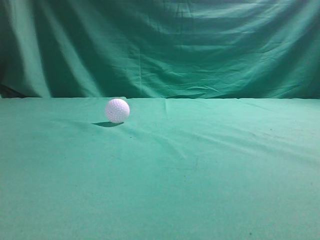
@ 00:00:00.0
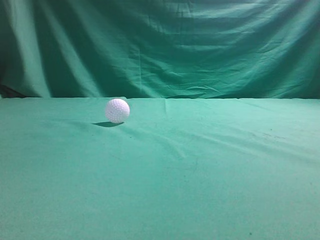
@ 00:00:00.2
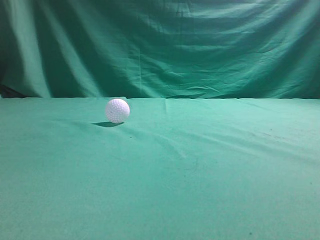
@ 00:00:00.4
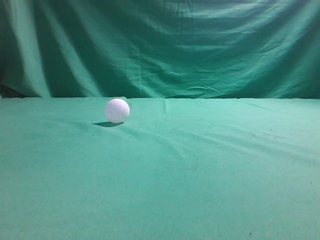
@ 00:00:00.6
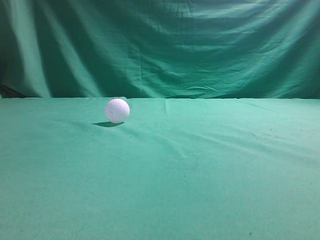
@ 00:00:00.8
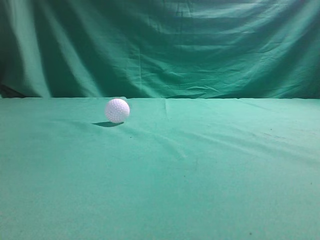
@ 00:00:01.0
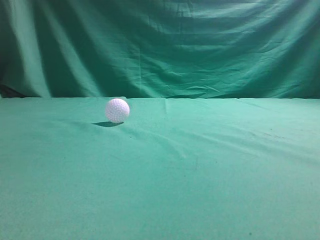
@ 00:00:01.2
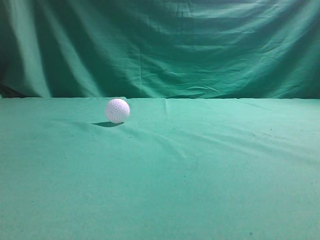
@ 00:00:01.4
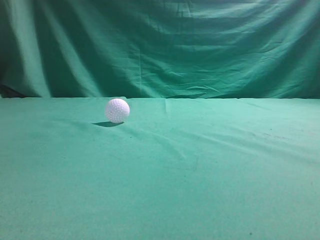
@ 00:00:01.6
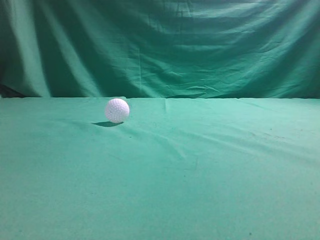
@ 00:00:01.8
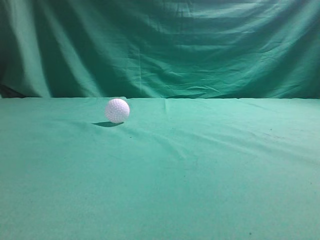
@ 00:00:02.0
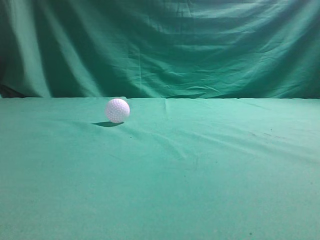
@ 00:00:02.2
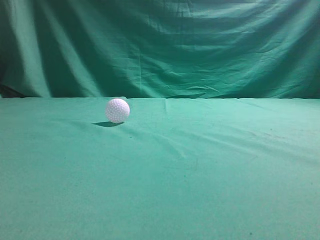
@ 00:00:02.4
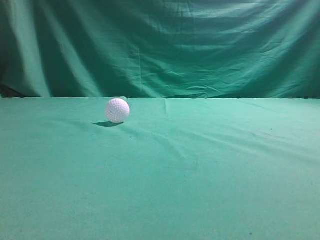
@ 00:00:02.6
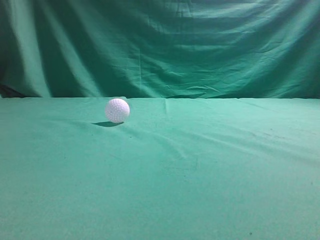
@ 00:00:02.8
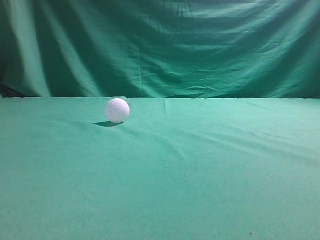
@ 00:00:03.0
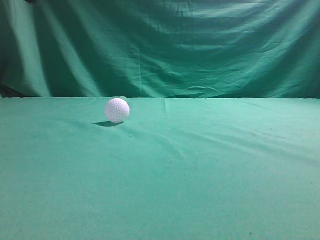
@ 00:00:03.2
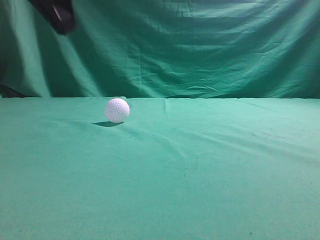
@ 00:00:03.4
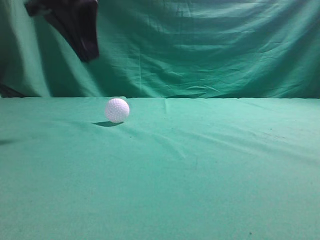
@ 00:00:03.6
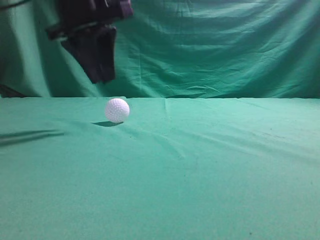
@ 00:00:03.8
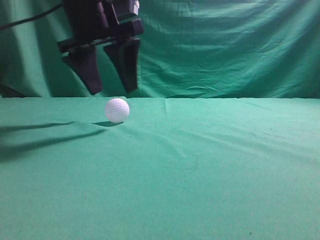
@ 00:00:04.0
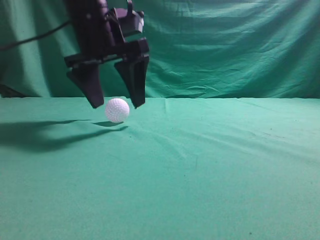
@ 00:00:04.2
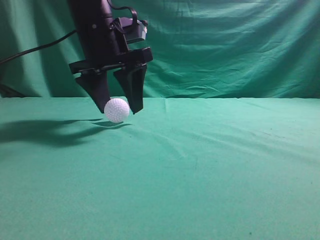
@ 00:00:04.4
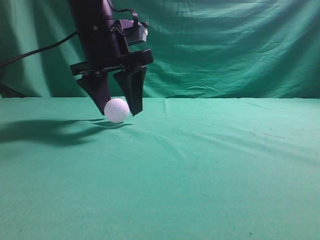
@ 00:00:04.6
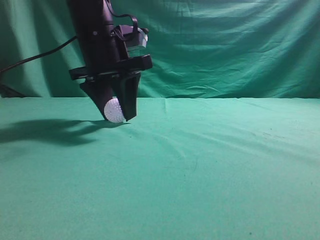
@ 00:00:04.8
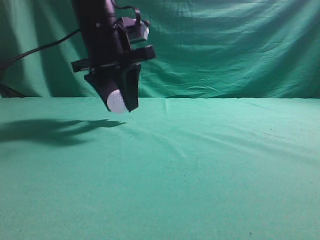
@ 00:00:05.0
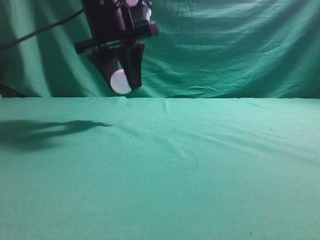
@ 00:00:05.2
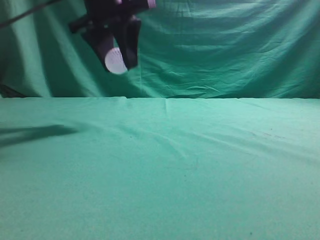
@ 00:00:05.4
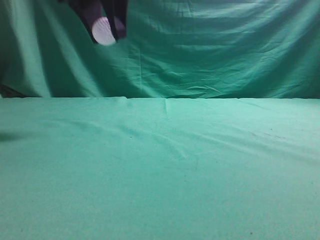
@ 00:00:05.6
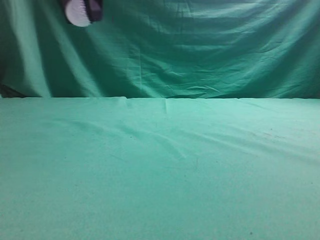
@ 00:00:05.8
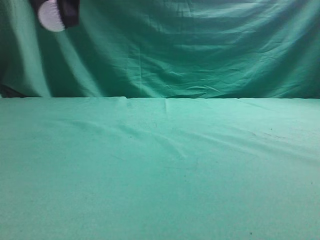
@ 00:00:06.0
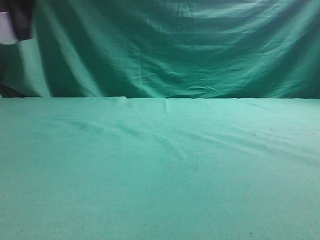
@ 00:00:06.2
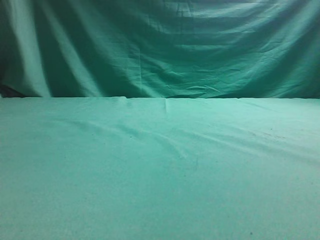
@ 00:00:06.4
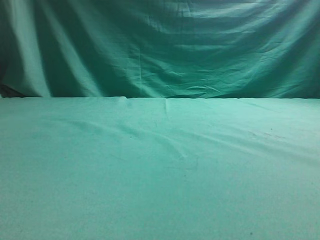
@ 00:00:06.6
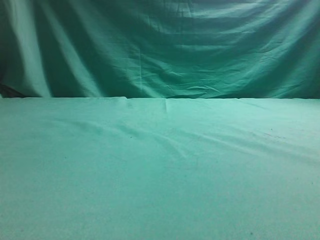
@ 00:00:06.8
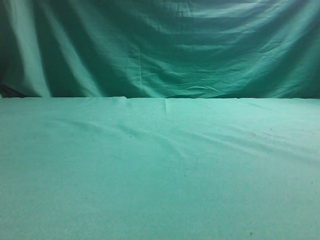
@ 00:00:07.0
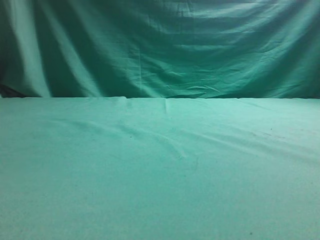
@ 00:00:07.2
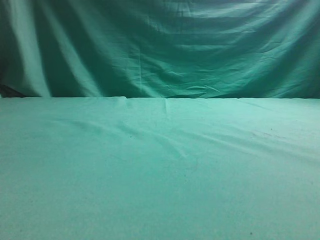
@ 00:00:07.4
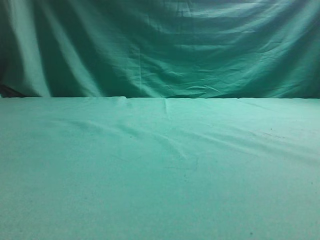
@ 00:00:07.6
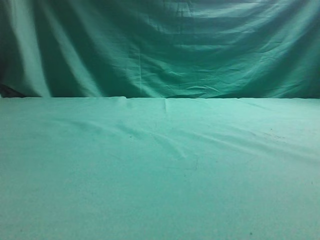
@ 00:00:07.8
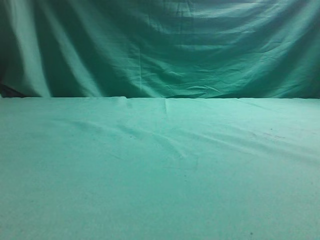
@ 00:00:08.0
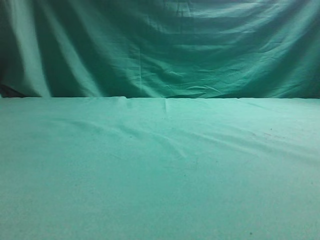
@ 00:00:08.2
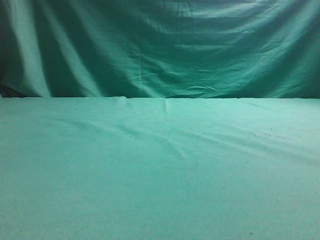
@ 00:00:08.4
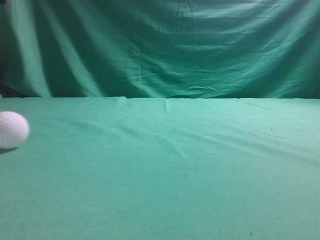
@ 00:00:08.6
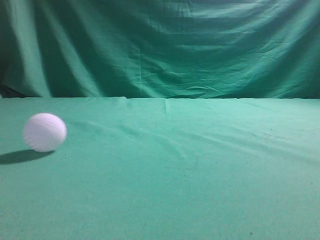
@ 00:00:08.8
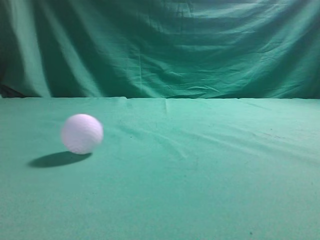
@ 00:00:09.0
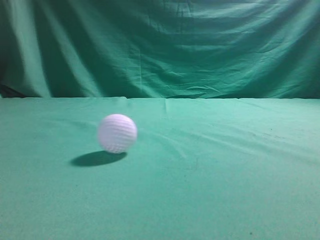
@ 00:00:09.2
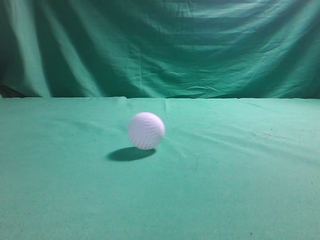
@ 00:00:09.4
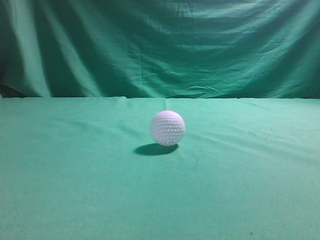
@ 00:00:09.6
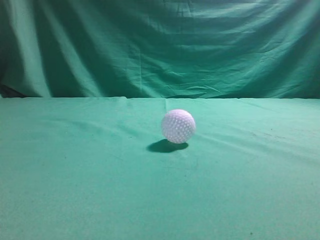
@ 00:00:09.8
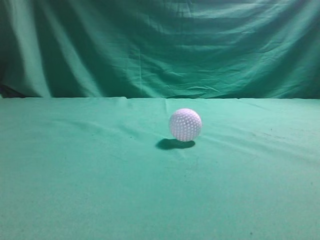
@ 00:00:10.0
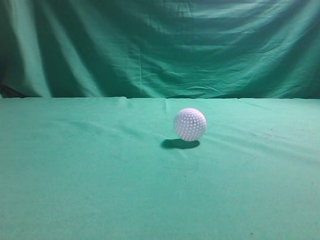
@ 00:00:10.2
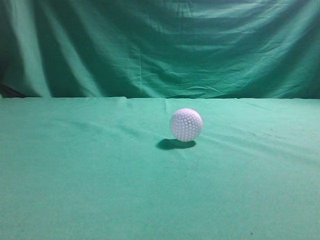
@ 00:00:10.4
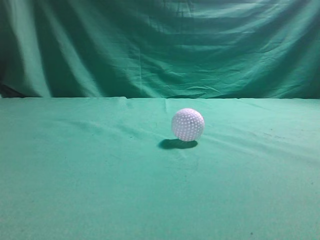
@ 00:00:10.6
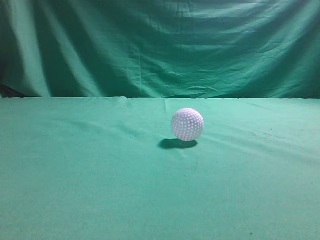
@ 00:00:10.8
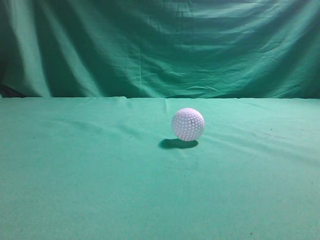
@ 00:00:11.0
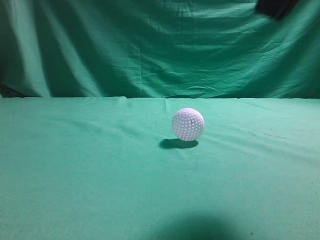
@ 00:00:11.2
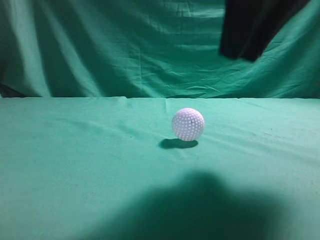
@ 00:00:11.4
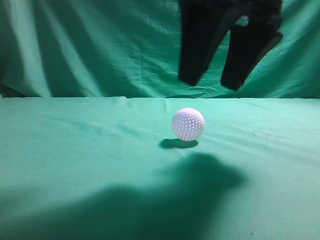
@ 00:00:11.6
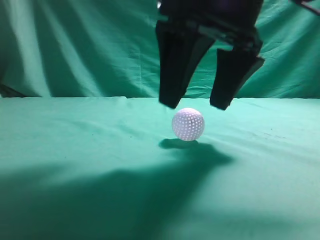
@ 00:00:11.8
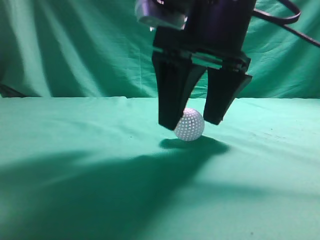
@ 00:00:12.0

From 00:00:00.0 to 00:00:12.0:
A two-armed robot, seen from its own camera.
Task of the whole recording: pick up the ball and place it on the plate, then pick up the ball from the plate and put it in the center of the table.
Step, from 00:00:00.0 to 00:00:05.2: Grab the spherical object with your left arm.
Step, from 00:00:05.6 to 00:00:08.0: Place the sphere on the white object.
From 00:00:03.0 to 00:00:04.4: The left gripper heads forward, to the right and downward, covering about 30 cm, and opens.
From 00:00:04.4 to 00:00:06.0: The left gripper travels upward and backward by about 15 cm, and closes its fingers.
From 00:00:06.0 to 00:00:07.6: The left gripper is displaced to the left and downward by roughly 25 cm.
From 00:00:07.6 to 00:00:09.0: The left gripper goes some 25 cm upward and to the right, and closes its fingers.
From 00:00:09.0 to 00:00:10.4: The right gripper travels upward by some 10 cm. The left gripper shifts approximately 20 cm backward and downward.
From 00:00:10.4 to 00:00:12.0: The right gripper moves to the left, forward and downward, roughly 30 cm, and opens.

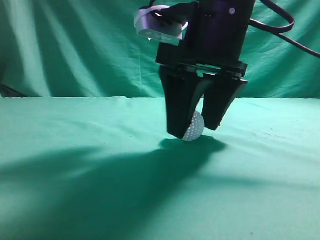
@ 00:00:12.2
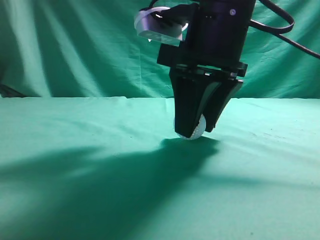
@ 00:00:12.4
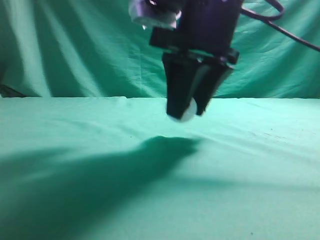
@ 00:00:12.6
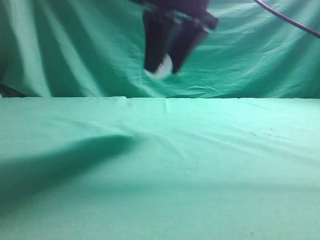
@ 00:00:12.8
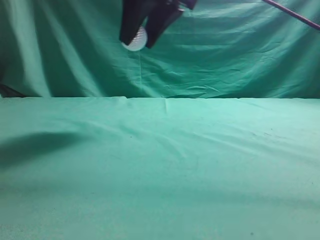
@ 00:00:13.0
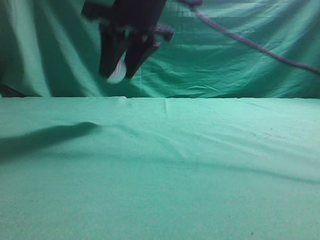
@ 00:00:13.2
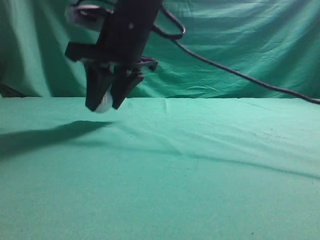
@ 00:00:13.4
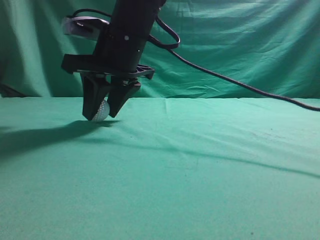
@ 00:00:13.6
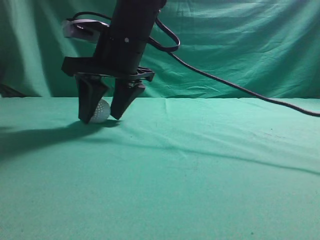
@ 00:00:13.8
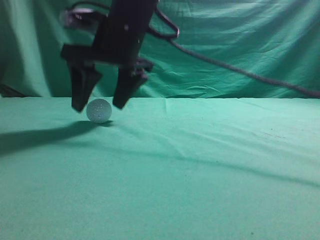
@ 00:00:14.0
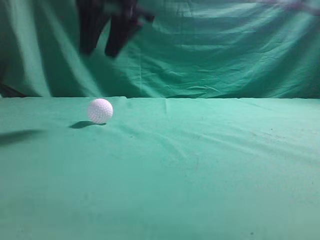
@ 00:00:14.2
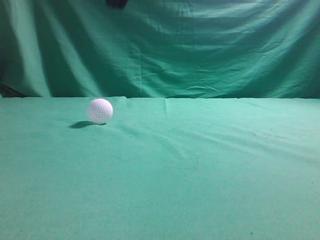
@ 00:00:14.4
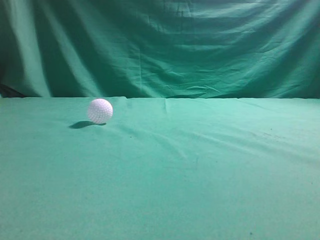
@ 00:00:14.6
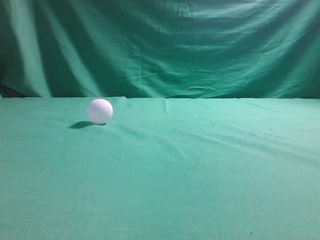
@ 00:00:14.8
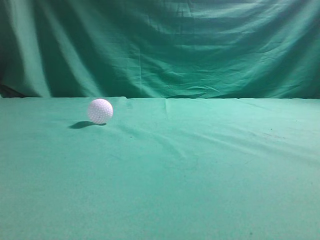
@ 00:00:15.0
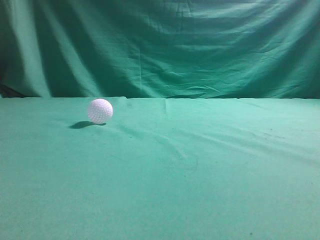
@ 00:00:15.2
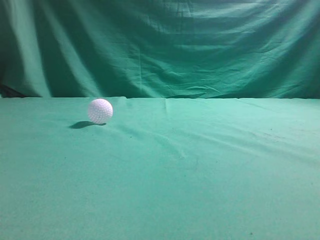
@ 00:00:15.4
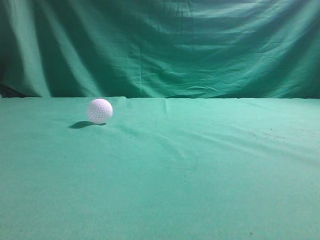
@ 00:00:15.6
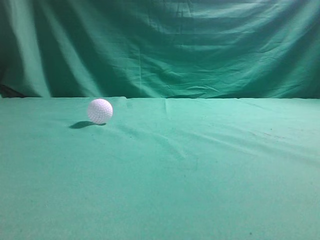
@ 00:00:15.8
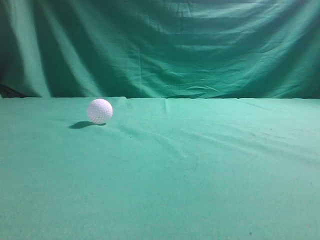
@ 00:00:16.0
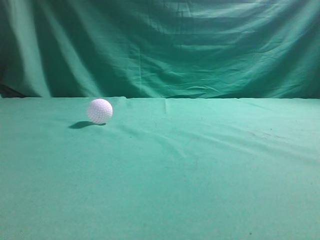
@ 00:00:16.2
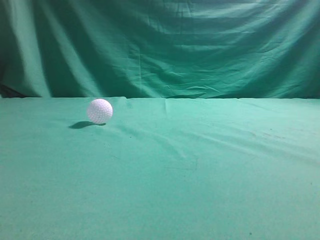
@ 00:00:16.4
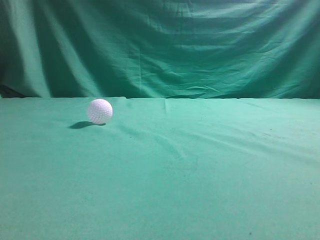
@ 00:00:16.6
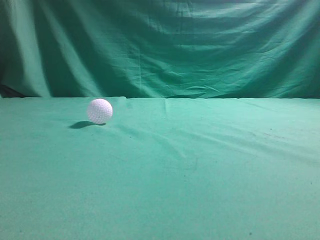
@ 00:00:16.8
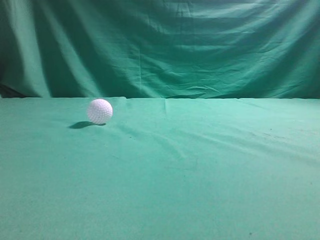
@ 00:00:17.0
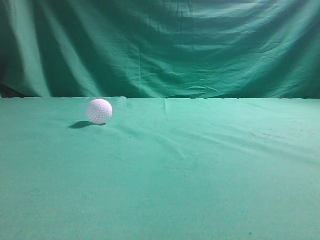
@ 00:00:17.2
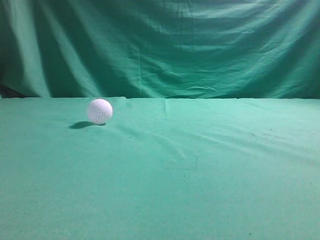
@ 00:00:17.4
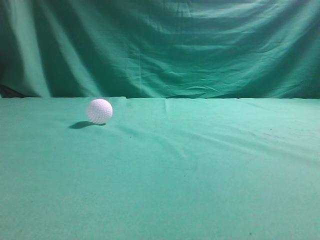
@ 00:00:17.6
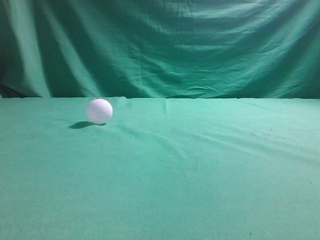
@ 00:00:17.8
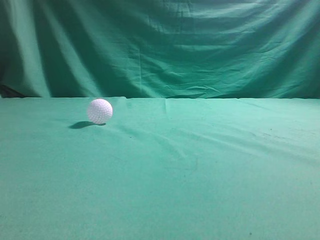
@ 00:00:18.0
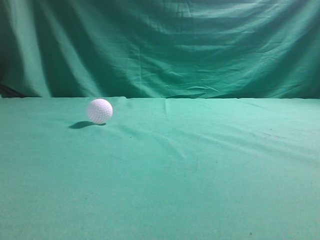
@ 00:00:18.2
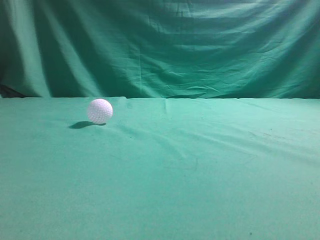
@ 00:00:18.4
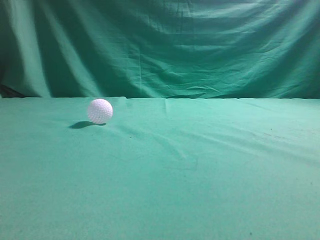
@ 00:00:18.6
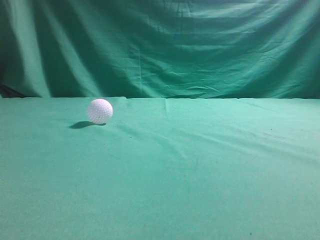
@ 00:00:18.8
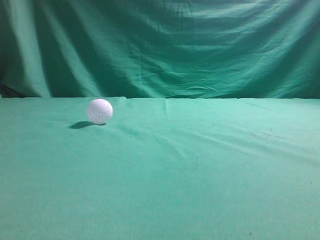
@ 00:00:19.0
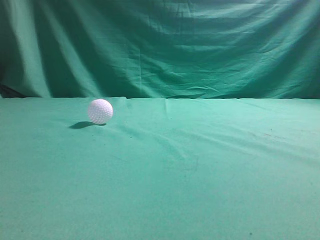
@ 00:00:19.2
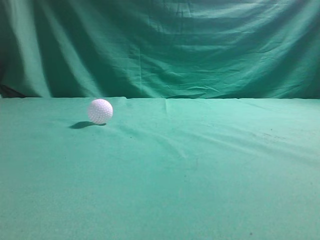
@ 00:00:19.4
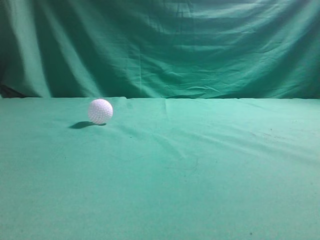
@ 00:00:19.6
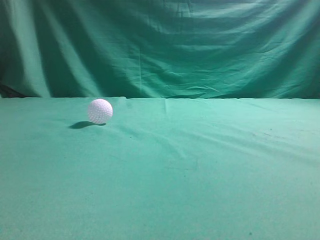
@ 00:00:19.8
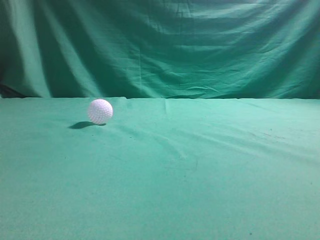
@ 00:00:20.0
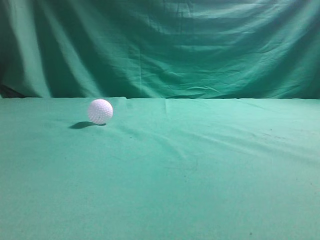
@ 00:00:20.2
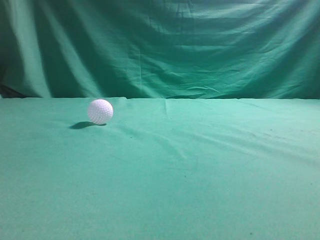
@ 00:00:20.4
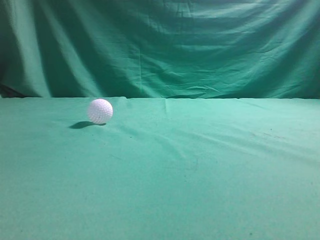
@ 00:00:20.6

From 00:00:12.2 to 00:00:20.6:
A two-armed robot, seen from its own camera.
Task of the whole recording: pick up the ball and place it on the plate, then pick up the ball from the plate and put it in the center of the table.
Step, from 00:00:12.8 to 00:00:14.0: Put the picked-up object on the table.
From 00:00:12.2 to 00:00:13.6: The right gripper is displaced to the left and forward by approximately 15 cm, and closes.
From 00:00:13.6 to 00:00:15.0: The right gripper is displaced upward by some 35 cm, and closes its fingers.
